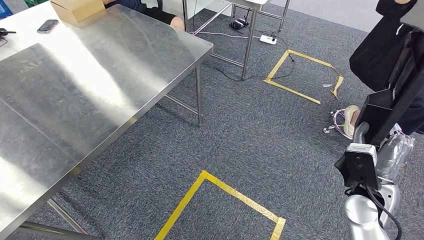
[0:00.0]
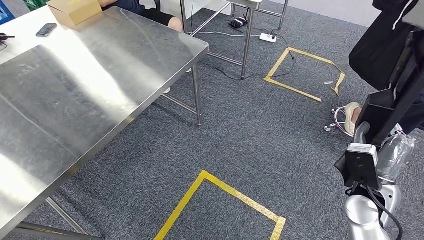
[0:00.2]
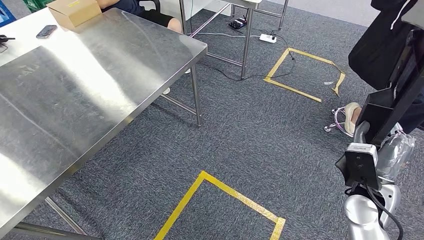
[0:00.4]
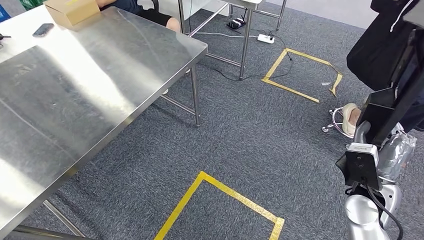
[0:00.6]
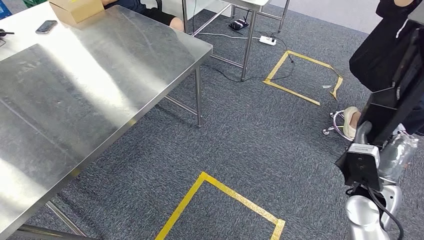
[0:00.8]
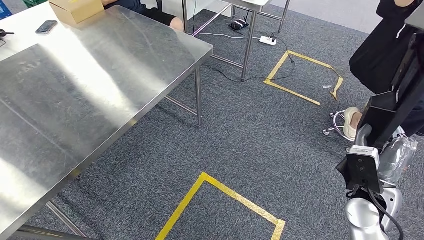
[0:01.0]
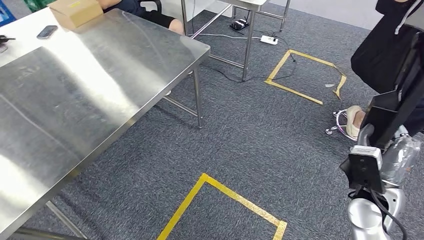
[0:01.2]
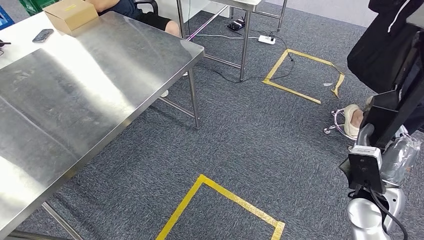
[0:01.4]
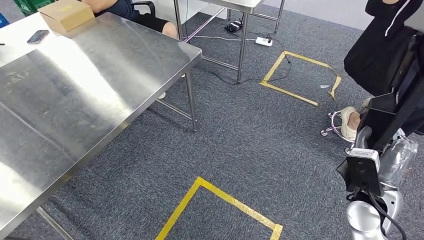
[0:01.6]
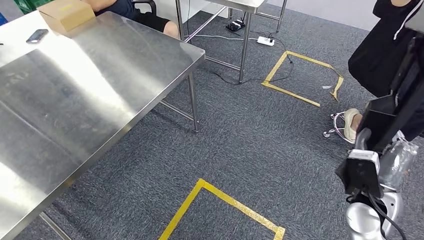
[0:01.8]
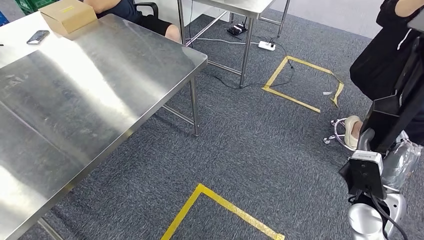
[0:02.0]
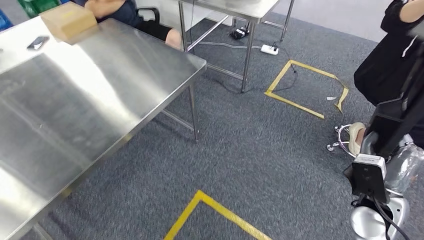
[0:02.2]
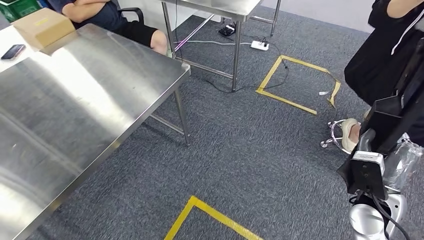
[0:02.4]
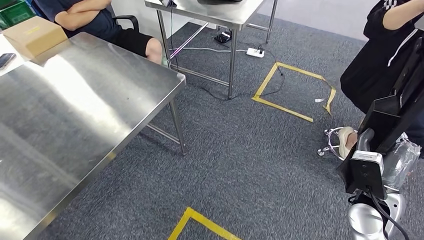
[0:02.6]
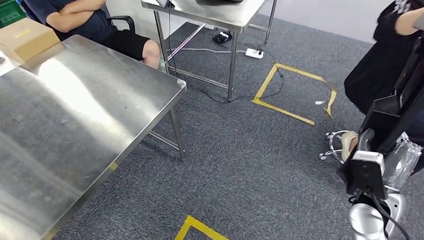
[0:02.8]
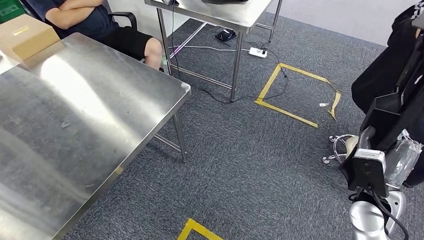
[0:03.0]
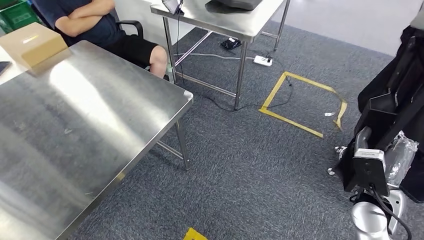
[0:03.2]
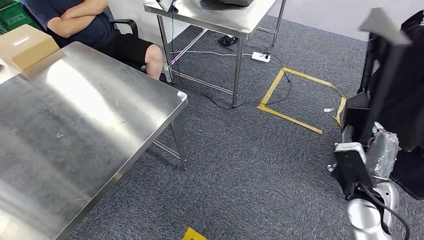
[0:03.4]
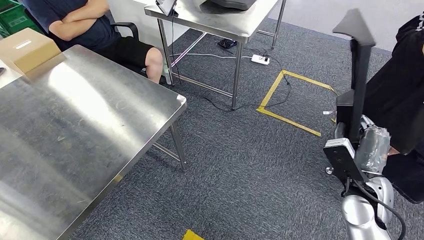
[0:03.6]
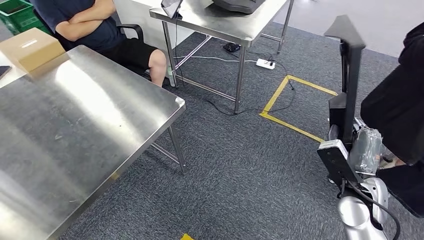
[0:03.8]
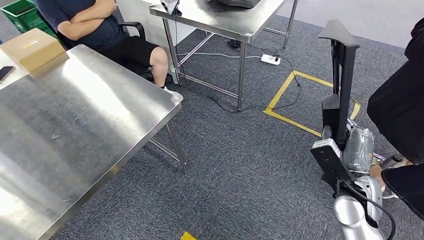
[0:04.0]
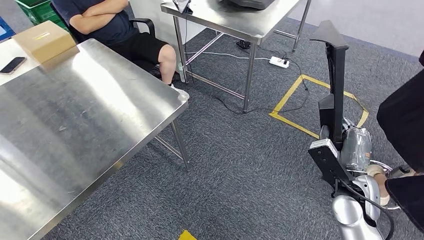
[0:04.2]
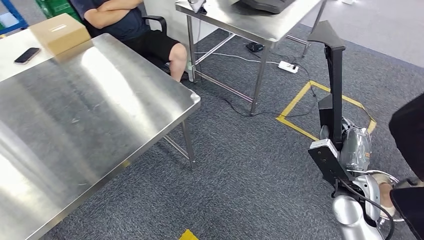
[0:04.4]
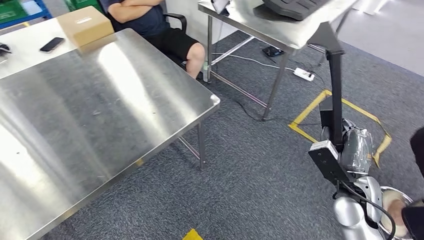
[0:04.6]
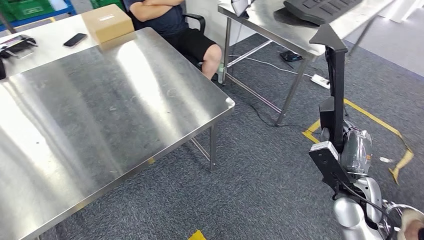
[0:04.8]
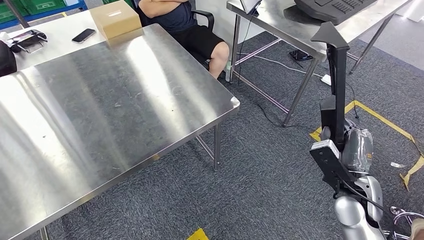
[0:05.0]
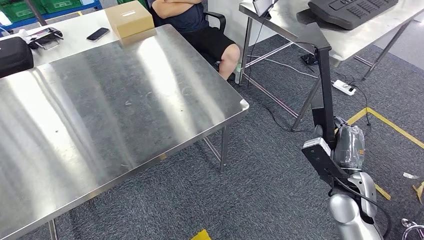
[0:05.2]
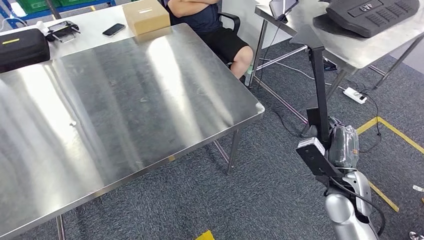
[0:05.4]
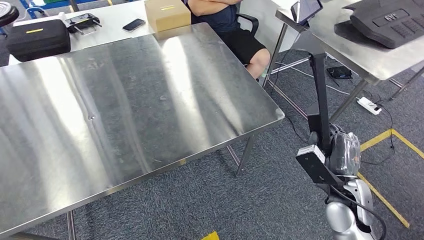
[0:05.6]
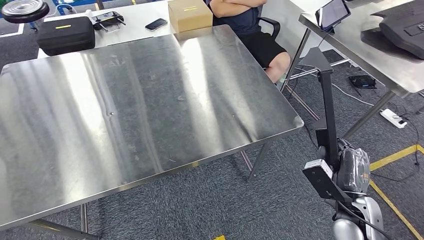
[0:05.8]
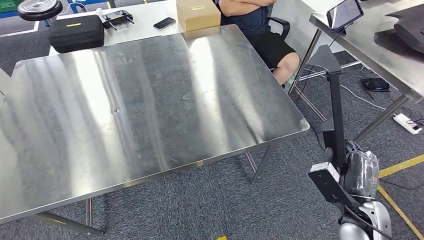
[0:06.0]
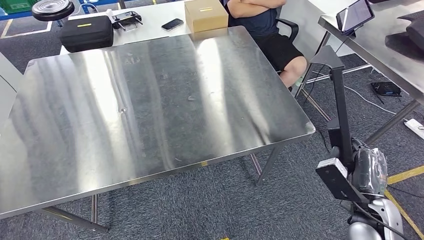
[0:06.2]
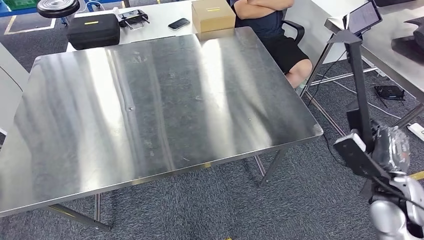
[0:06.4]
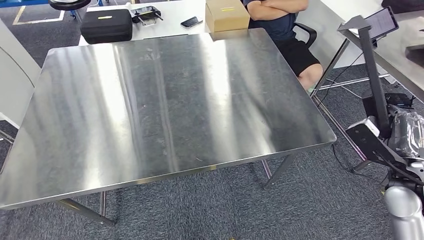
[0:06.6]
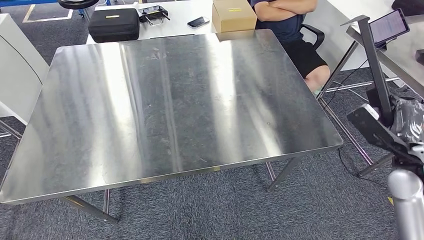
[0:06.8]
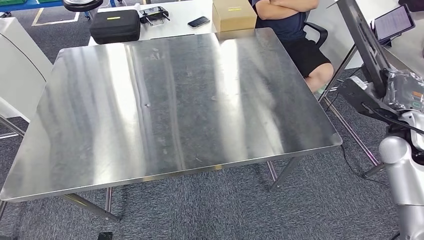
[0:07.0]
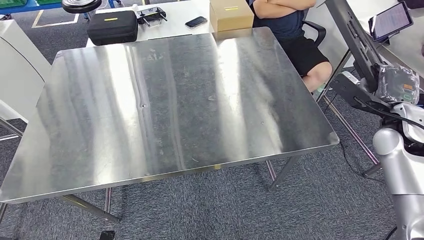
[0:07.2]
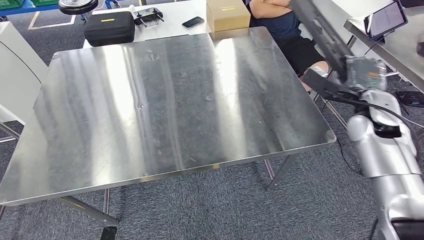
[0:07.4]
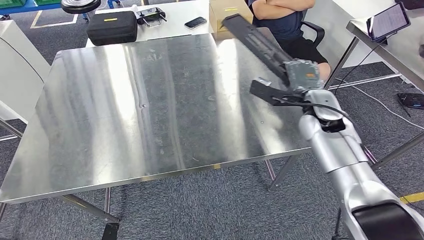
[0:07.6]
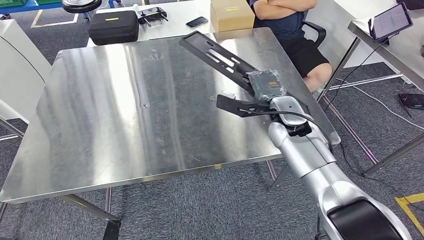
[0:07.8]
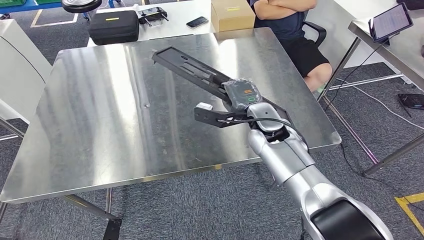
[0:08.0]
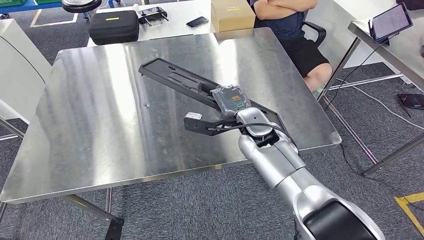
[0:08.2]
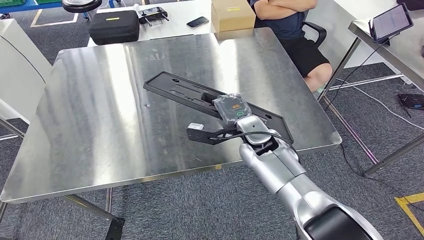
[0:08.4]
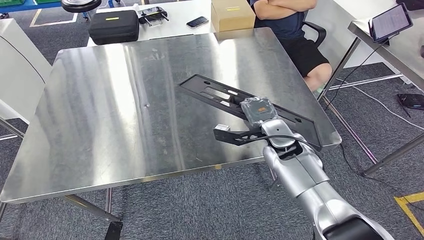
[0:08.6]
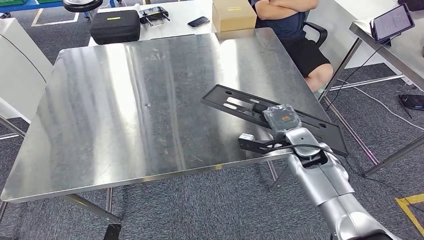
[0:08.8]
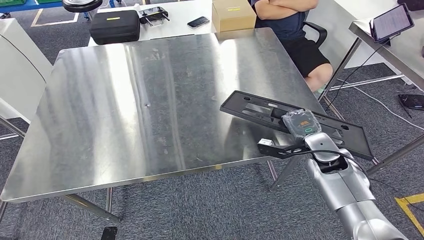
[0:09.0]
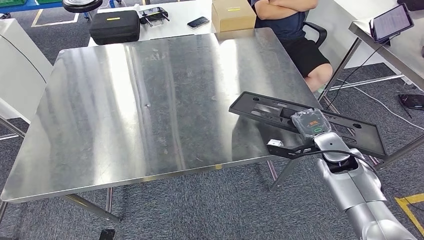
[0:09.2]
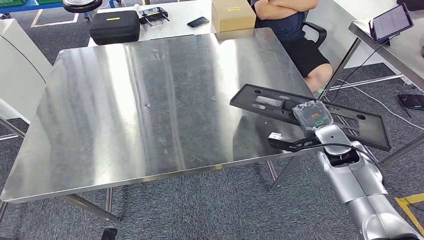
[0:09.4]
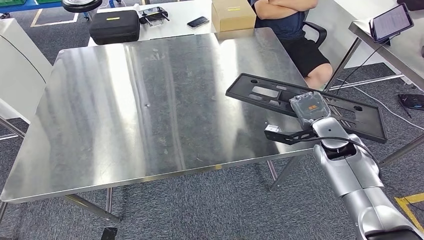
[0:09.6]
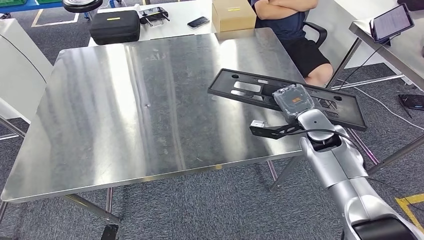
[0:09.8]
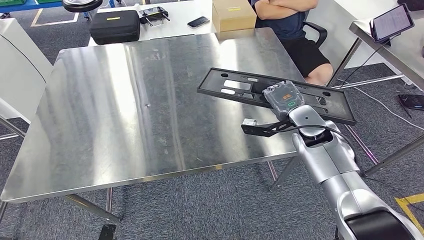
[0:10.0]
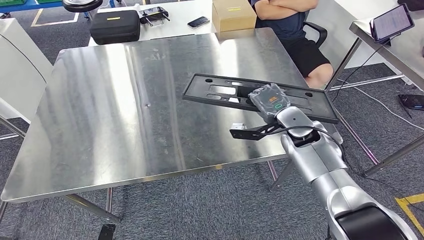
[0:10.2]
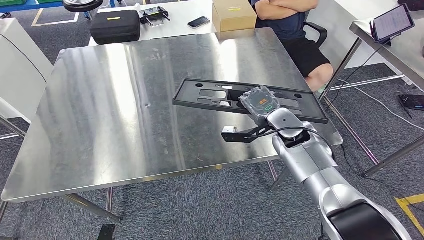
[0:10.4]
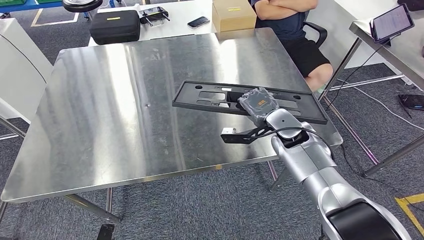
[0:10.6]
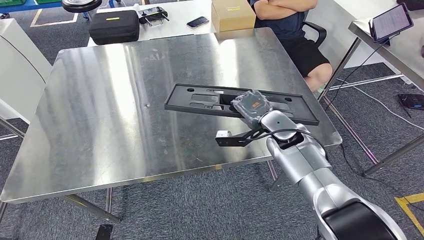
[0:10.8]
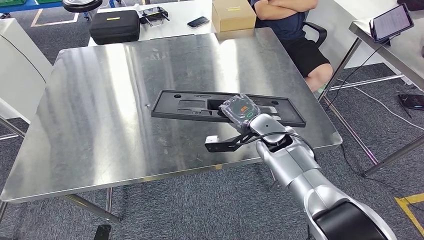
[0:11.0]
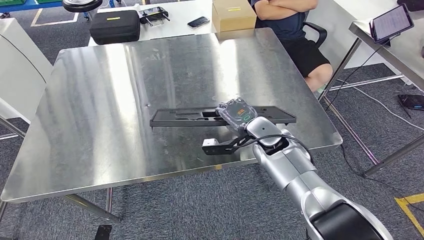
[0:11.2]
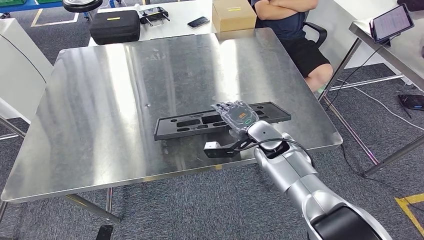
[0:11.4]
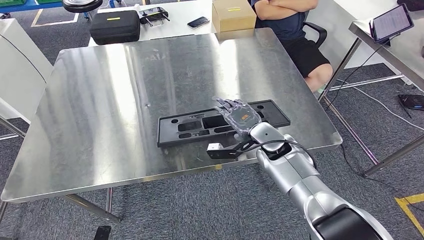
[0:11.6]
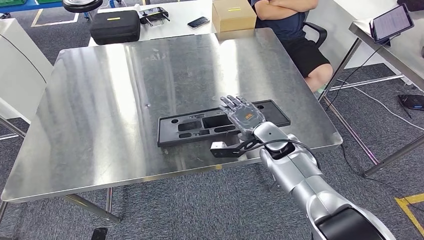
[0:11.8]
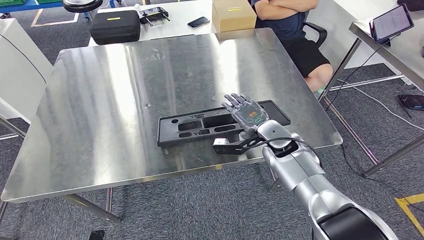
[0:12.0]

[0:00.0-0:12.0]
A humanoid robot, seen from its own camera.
Step, 0:00.0 to 0:07.0: Move the large material to the workbench.
0:09.0 to 0:10.4: The right hand is displaced to the left by approximately 10 cm.
0:10.4 to 0:12.0: There are only small adjustments of the hands.

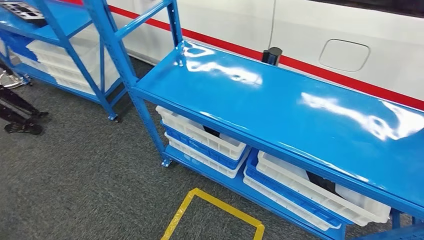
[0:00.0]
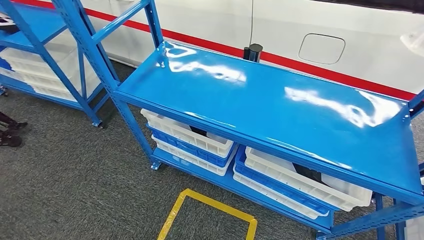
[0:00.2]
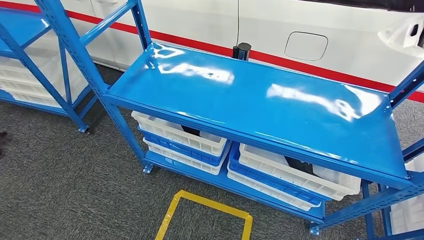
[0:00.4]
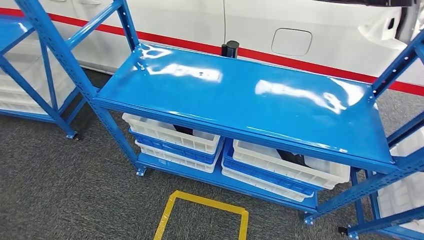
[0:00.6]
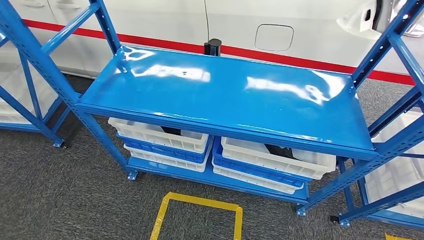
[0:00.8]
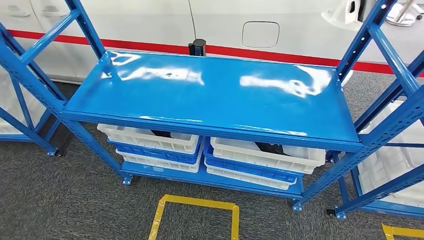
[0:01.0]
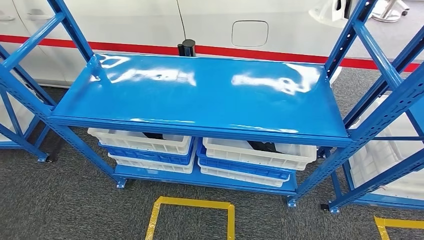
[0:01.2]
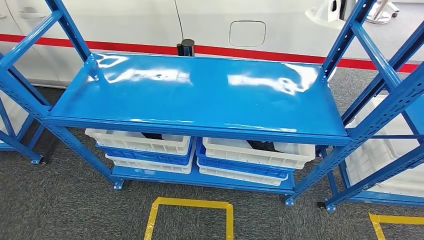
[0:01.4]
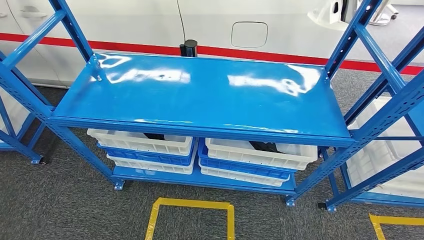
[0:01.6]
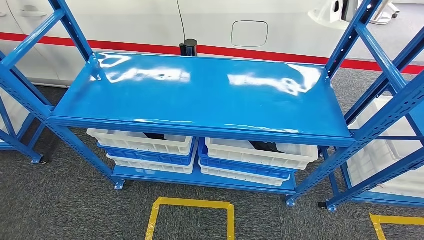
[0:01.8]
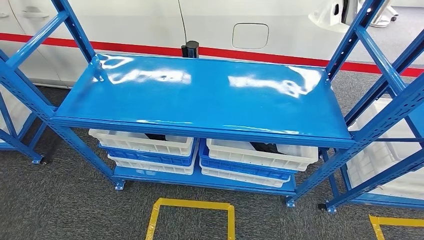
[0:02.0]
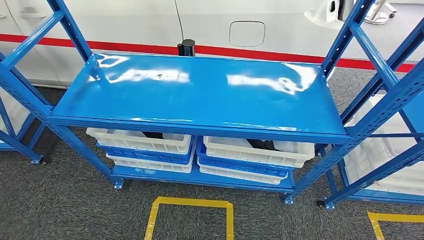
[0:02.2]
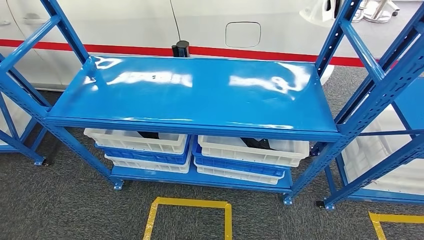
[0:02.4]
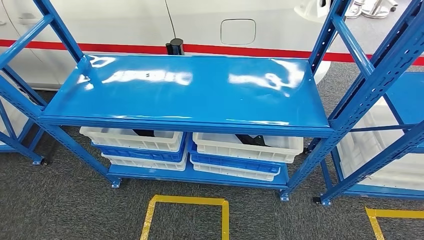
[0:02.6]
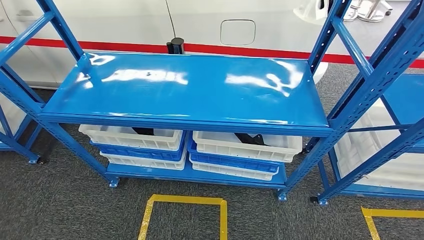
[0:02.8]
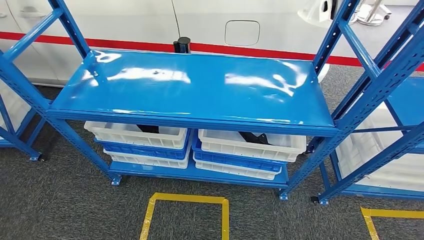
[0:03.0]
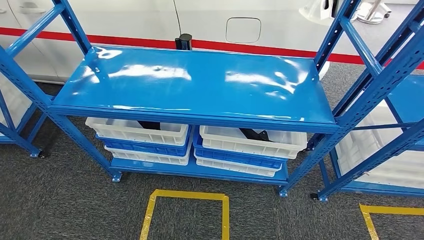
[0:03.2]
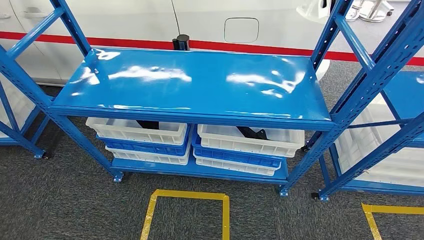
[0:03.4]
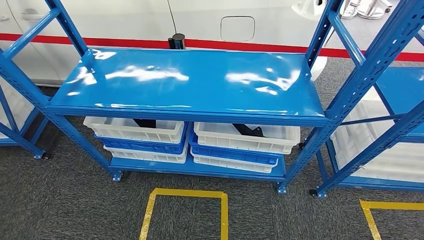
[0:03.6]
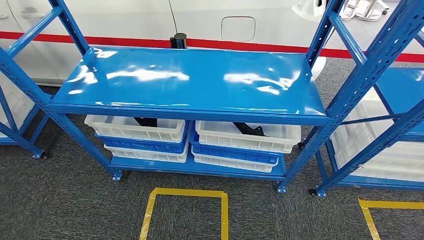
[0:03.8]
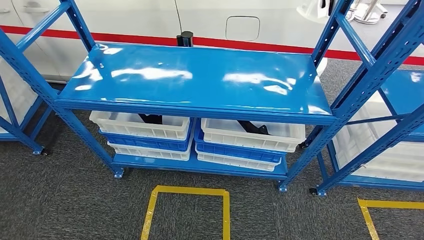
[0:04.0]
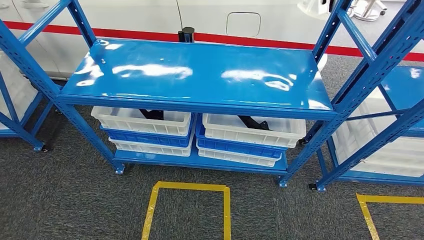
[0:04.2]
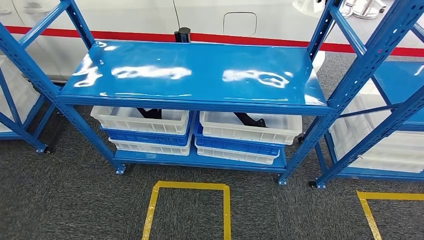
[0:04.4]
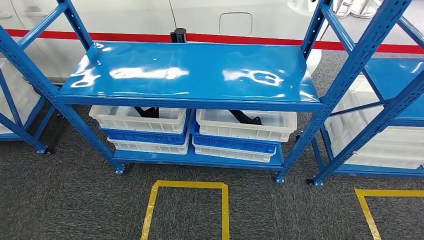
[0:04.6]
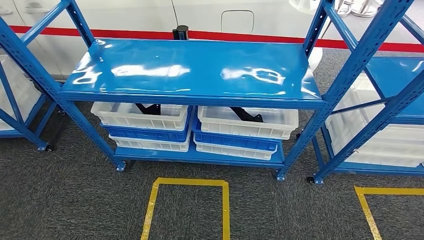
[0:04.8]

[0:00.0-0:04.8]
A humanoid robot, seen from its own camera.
Step, 0:00.0 to 0:04.8: Move to the initial position of the shelf.
